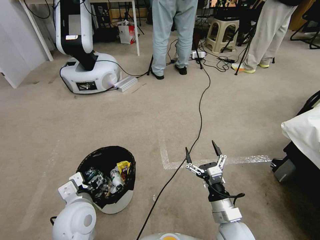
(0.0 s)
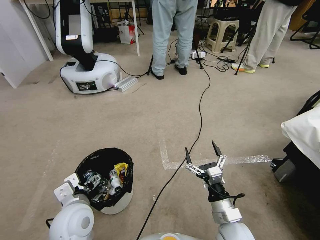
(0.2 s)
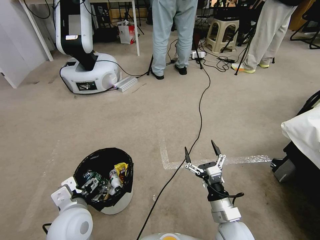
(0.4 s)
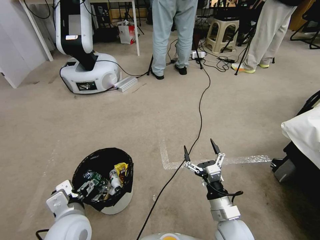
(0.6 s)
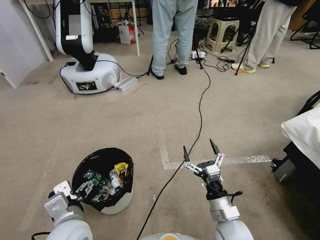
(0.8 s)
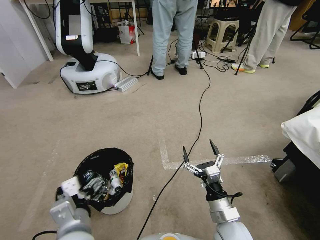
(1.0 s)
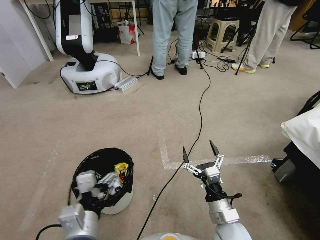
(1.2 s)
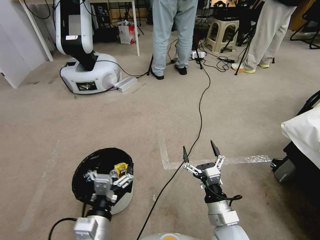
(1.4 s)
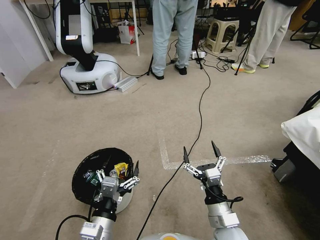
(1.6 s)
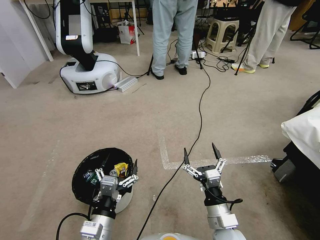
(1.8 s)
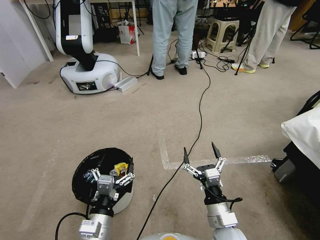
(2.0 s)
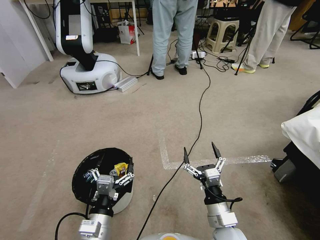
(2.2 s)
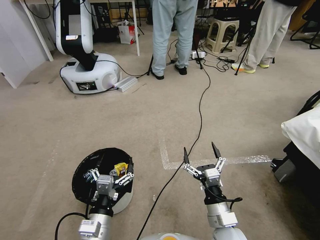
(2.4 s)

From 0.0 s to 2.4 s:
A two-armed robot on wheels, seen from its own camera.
Task of the whole recording: Pick up the trash bin, then pick up the garbage from the floor and place it into the trash bin.
From 0.0 s to 1.2 s: The left gripper heads backward, covering roughly 10 cm.
From 1.2 s to 2.4 s: The left gripper travels downward by approximately 10 cm.

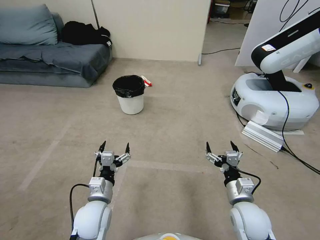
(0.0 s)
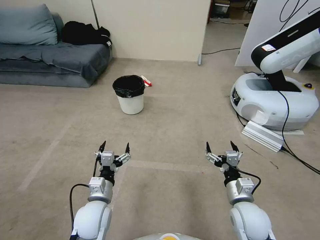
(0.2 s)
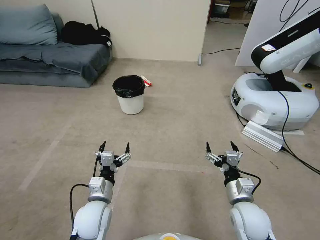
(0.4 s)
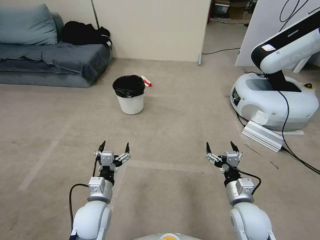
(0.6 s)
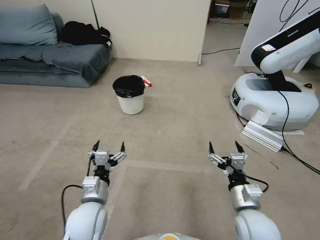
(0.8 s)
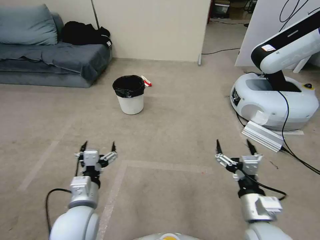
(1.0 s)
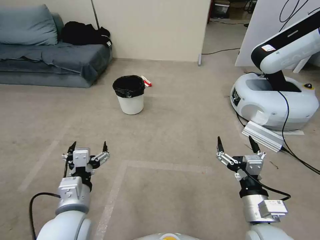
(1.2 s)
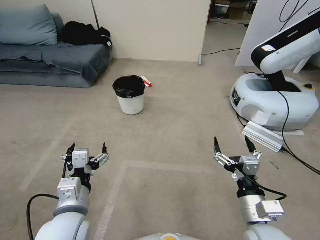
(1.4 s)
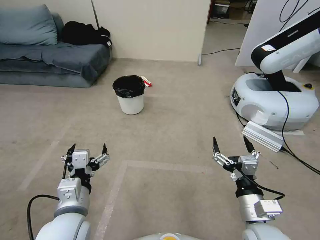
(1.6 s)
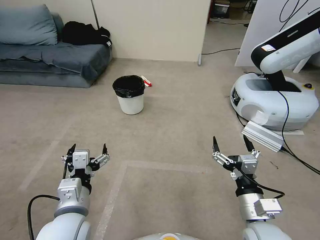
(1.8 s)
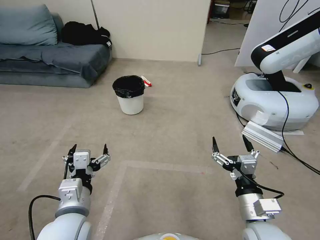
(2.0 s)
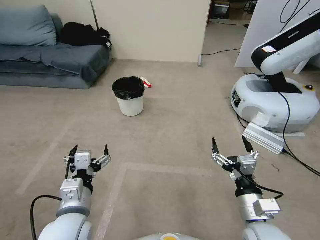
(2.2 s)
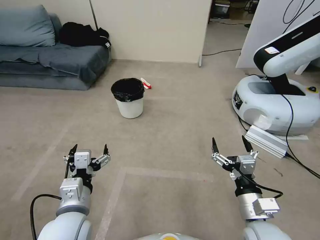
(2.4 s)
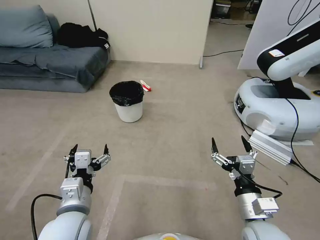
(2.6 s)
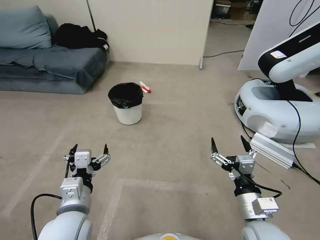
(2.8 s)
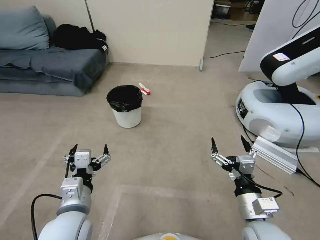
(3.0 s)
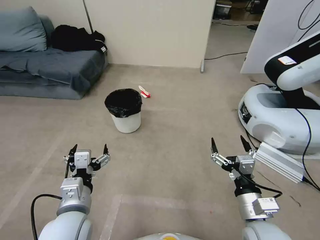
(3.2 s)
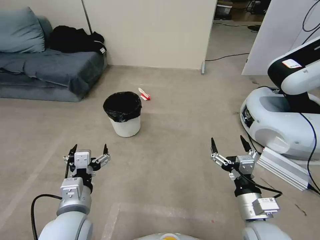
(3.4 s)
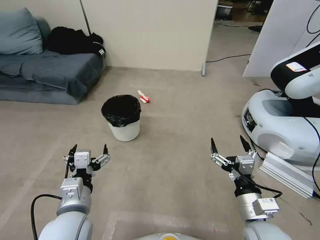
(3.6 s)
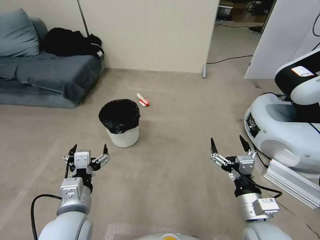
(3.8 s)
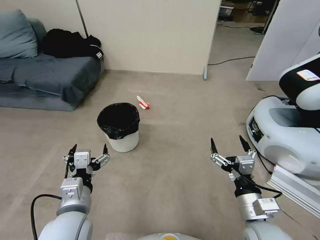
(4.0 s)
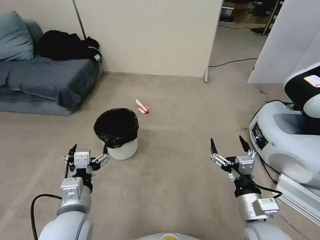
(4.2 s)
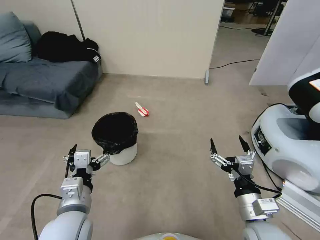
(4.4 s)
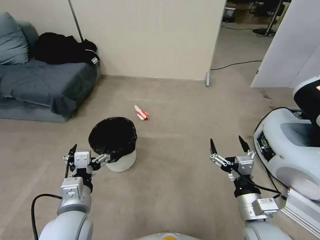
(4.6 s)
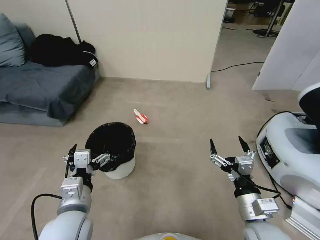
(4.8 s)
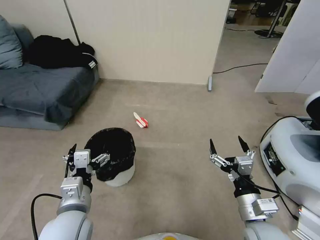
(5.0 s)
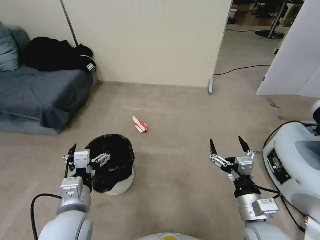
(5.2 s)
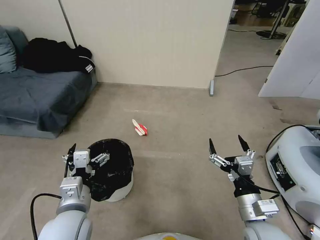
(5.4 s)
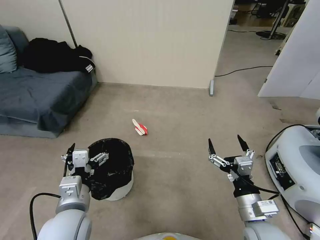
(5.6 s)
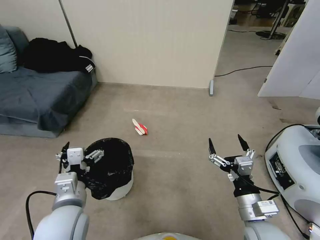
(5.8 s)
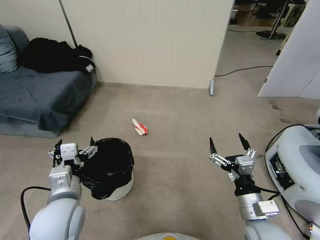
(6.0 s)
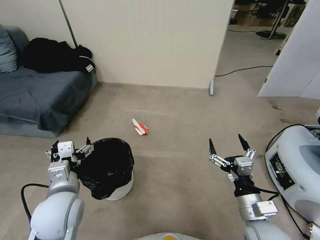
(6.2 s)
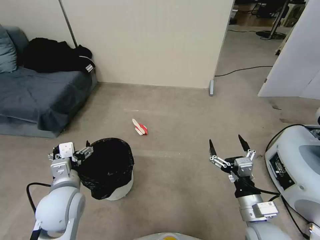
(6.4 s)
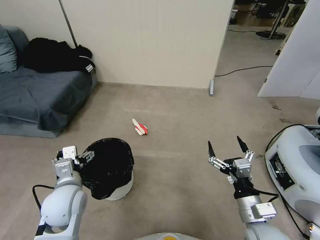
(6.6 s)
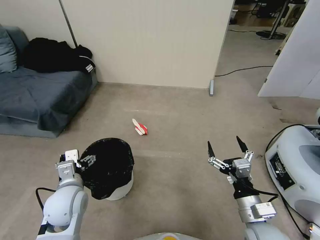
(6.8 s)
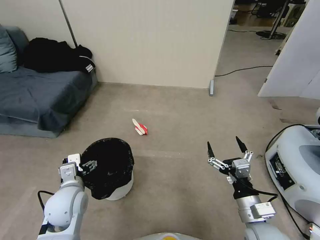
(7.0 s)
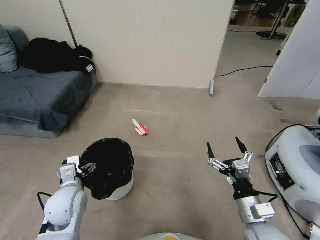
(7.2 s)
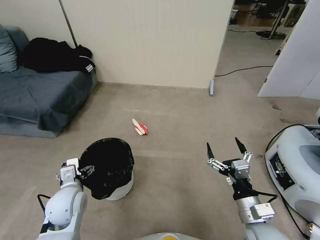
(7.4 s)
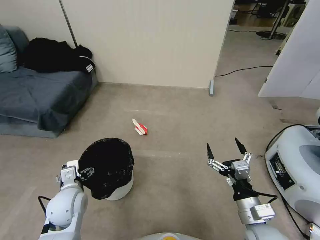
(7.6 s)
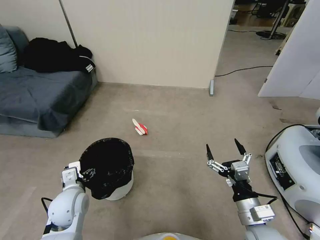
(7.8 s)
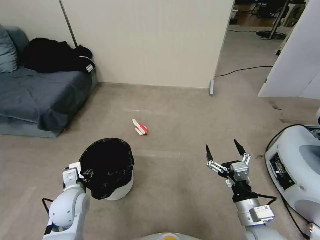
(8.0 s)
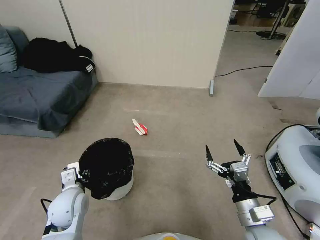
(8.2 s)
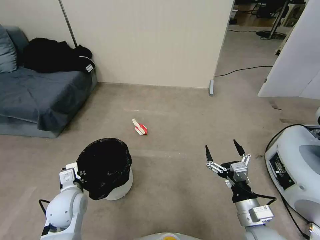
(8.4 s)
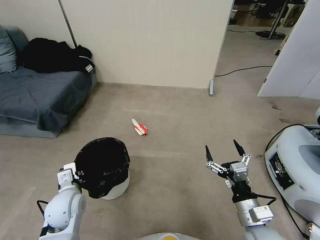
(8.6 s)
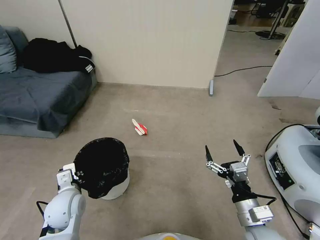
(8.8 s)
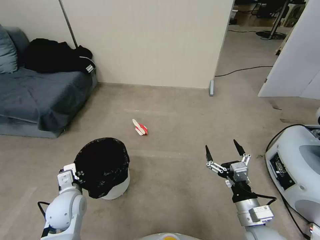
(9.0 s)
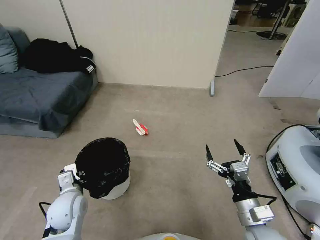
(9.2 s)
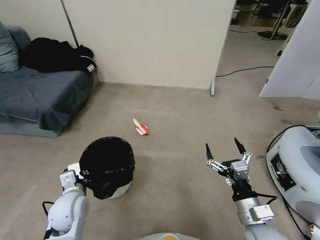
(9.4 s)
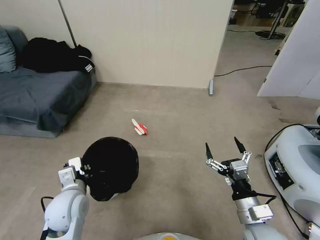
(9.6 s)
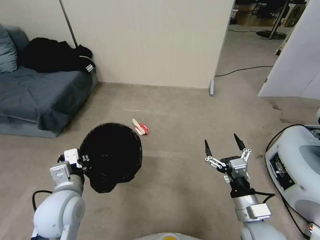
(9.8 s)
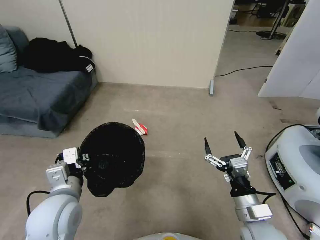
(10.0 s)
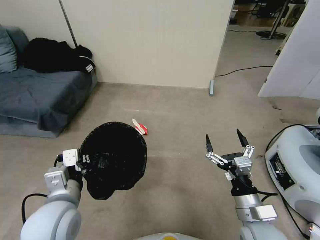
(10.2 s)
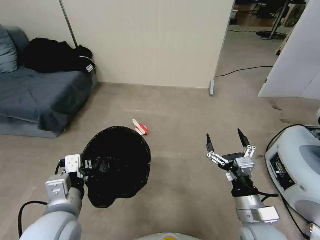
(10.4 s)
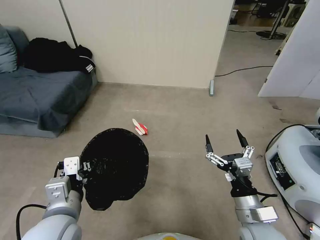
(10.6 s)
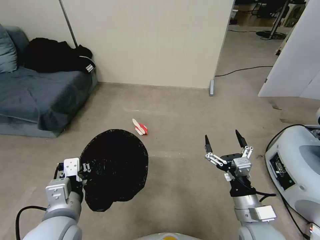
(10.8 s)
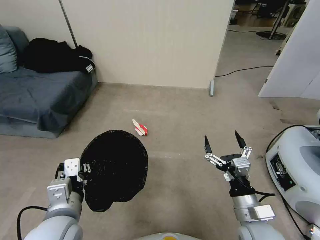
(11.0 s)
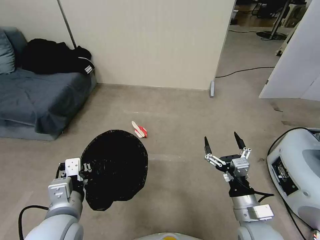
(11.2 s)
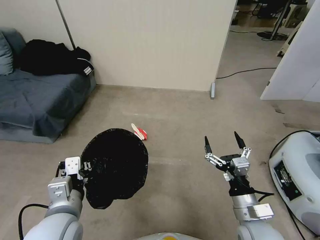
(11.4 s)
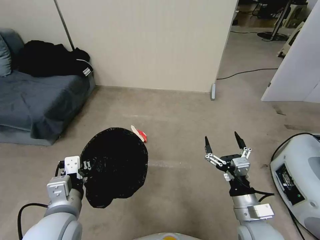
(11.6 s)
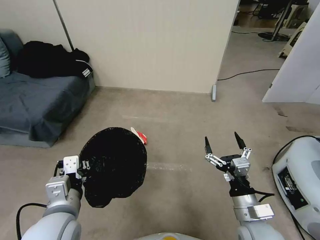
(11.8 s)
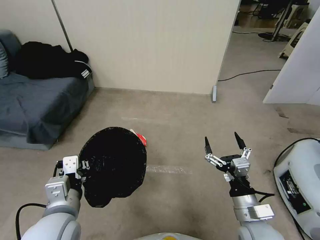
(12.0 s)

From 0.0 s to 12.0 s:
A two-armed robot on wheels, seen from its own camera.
Task of the whole recording: Pick up the trash bin, then pick up the garbage from the floor and place it into the trash bin.
From 6.0 s to 7.6 s: The left gripper is displaced downward and forward by some 10 cm.
From 7.6 s to 9.0 s: The left gripper closes up.
From 9.0 s to 10.4 s: The left gripper travels upward, backward and to the right by roughly 15 cm.
From 10.4 s to 12.0 s: Neither gripper changes place.

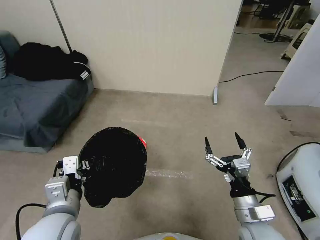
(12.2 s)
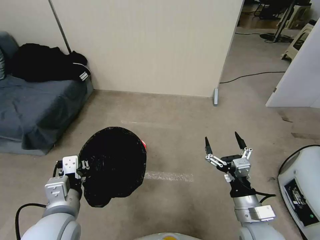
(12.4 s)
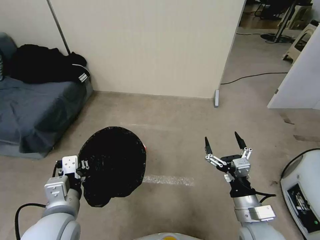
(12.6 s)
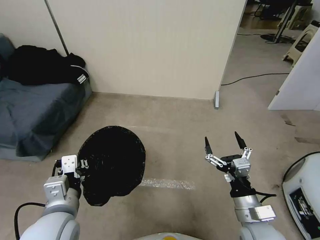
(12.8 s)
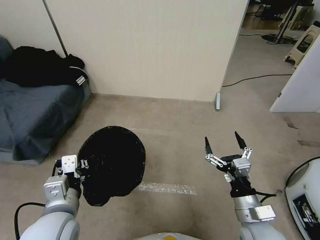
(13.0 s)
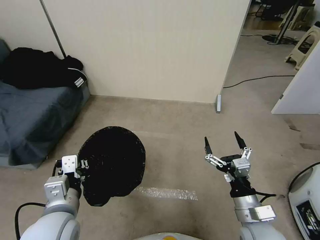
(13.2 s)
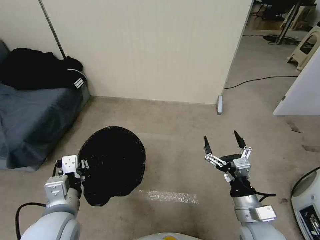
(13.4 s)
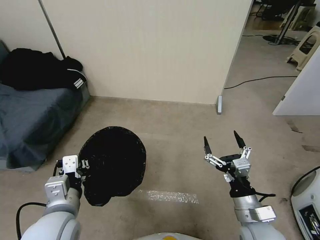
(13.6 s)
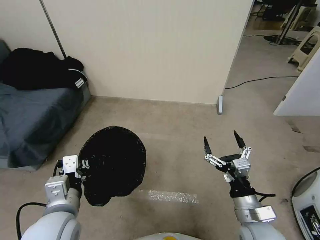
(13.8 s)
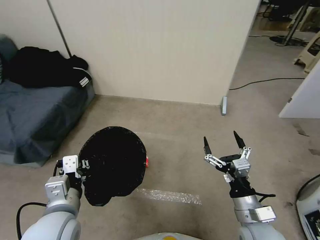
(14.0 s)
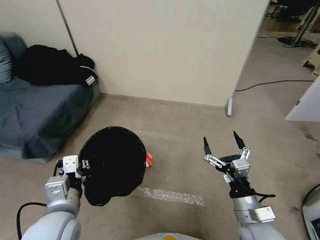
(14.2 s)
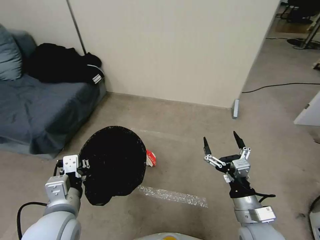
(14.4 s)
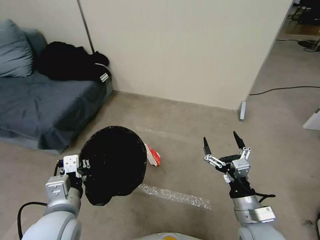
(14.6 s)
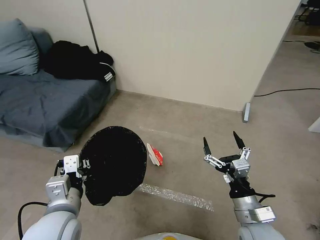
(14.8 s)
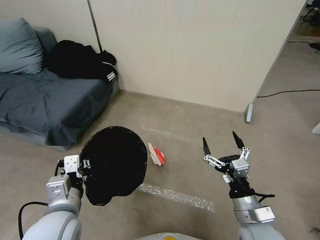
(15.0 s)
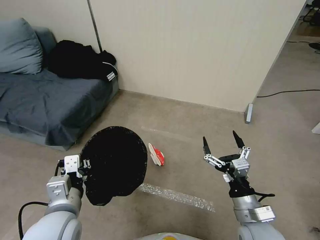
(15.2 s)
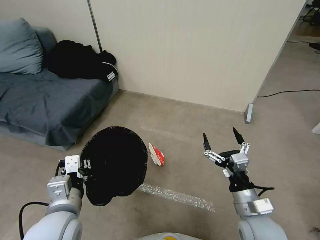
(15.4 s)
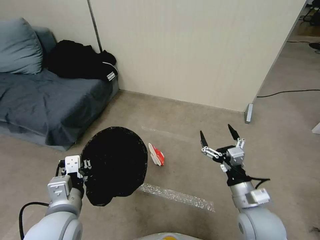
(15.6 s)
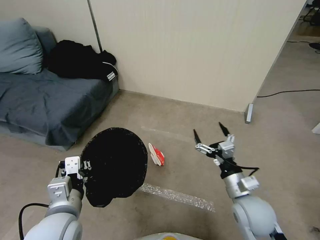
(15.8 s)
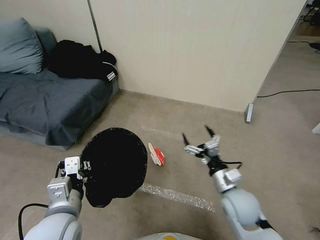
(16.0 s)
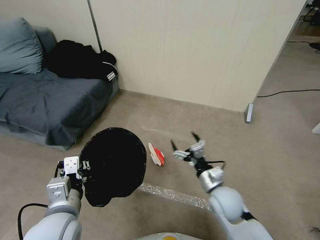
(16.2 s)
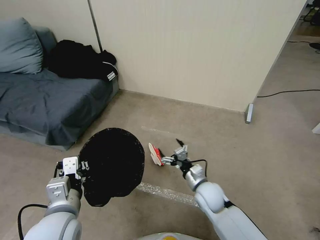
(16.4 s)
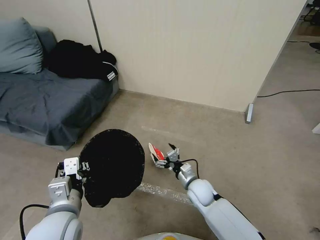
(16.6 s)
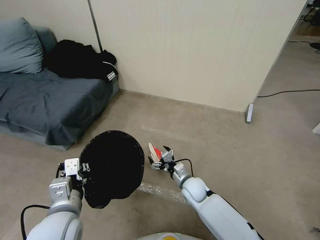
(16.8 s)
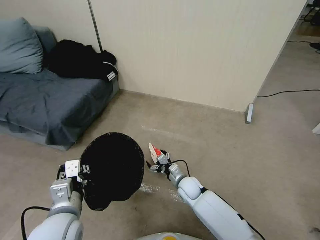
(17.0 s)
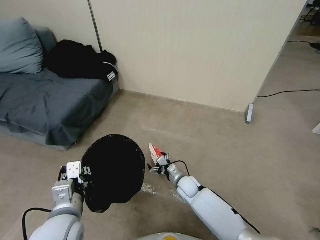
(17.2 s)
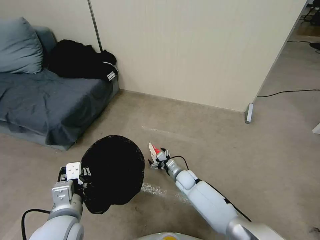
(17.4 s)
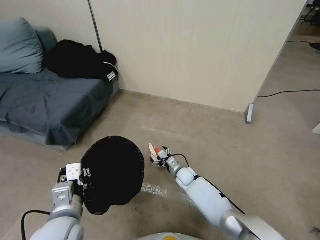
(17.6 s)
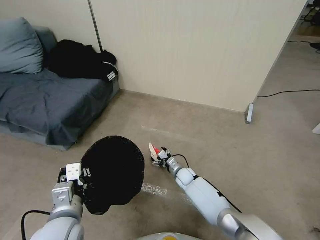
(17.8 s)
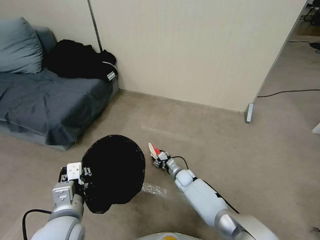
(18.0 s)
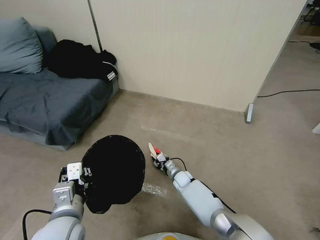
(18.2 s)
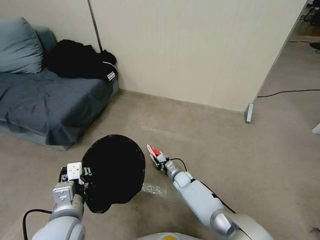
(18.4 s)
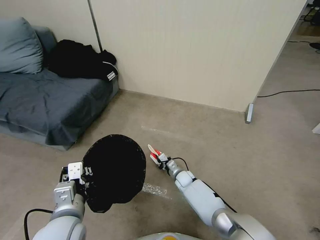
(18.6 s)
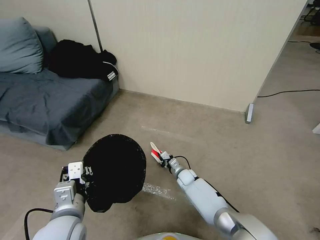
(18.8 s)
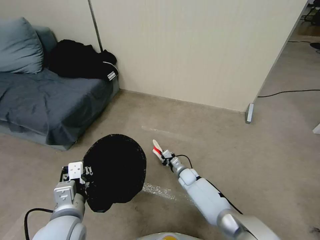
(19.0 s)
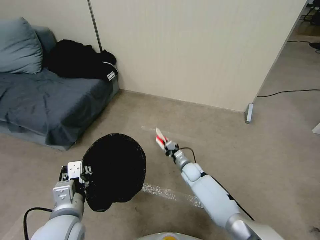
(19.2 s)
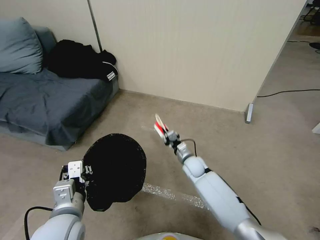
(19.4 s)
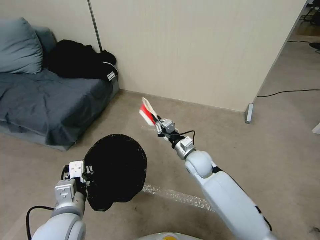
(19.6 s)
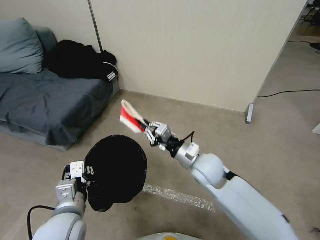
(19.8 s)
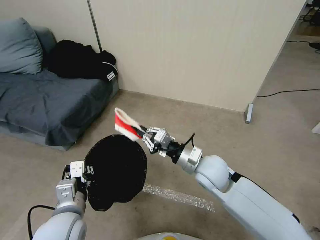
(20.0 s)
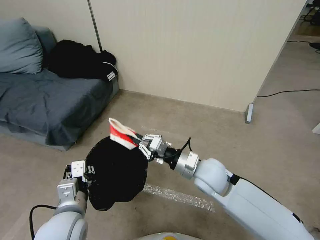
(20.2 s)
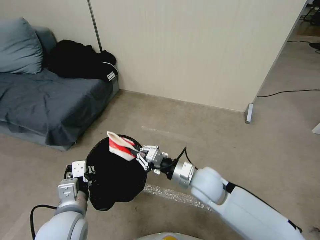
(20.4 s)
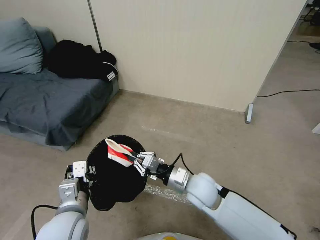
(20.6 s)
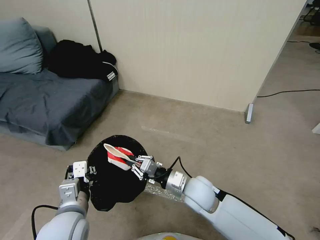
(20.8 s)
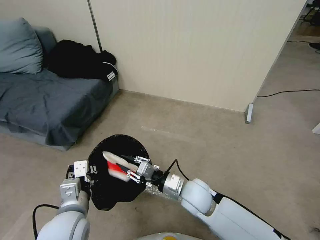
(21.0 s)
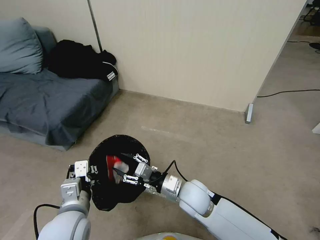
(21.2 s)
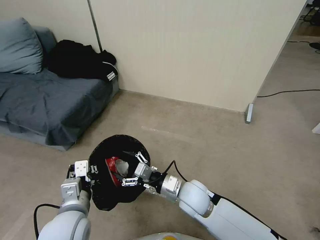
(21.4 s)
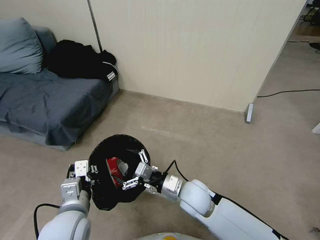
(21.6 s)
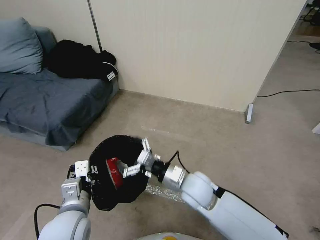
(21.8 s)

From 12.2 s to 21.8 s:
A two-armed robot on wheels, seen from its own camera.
Task of the whole recording: Pick up the trash bin, then pick up the garbage from the floor and place it into the trash bin.
From 12.2 s to 13.8 s: Neither gripper changes place.
From 15.4 s to 17.0 s: The right gripper goes roughly 30 cm downward, forward and to the left.
From 17.0 s to 18.6 s: The right gripper heads downward and forward, covering some 10 cm, and closes.
From 18.6 s to 20.2 s: The right gripper shifts roughly 30 cm upward.
From 20.2 s to 21.8 s: The right gripper moves about 5 cm, and opens.
